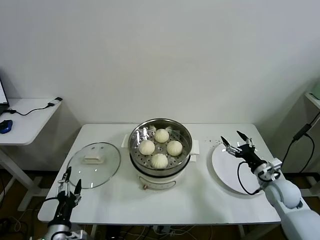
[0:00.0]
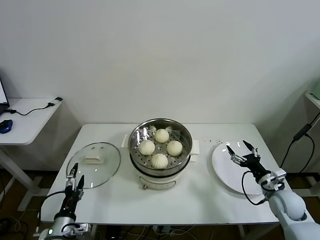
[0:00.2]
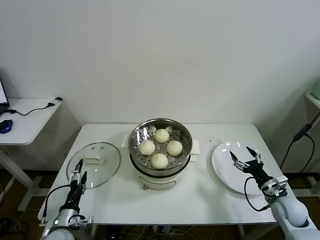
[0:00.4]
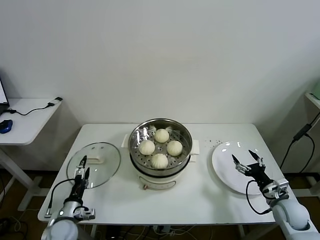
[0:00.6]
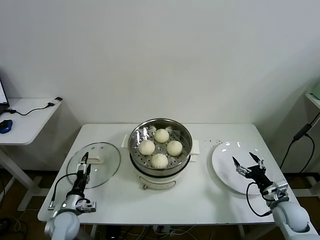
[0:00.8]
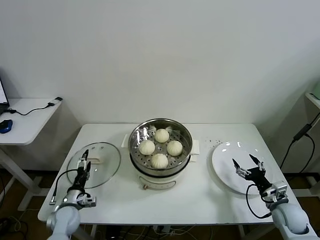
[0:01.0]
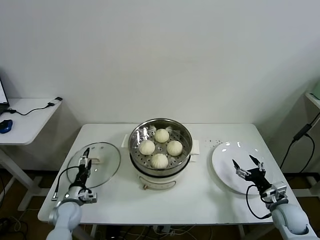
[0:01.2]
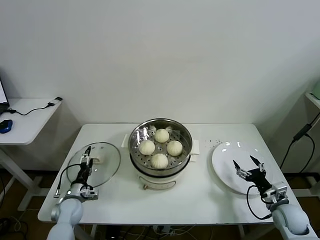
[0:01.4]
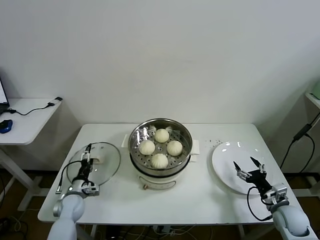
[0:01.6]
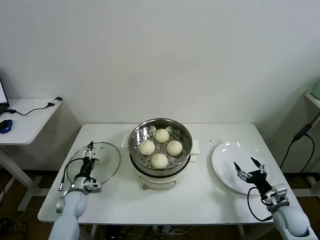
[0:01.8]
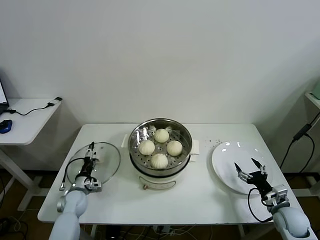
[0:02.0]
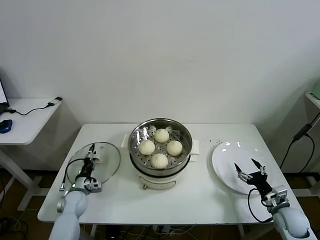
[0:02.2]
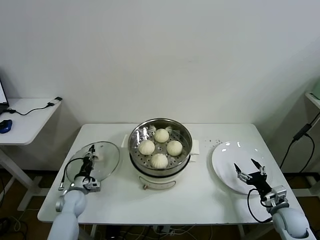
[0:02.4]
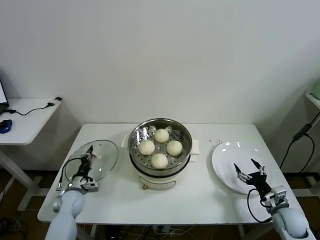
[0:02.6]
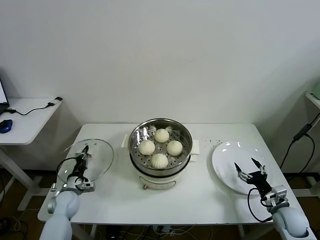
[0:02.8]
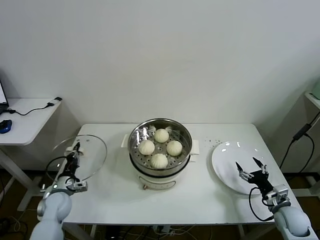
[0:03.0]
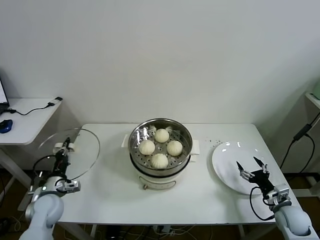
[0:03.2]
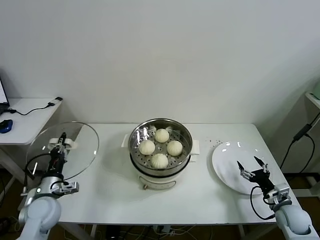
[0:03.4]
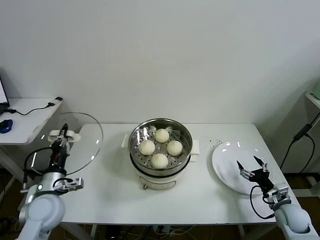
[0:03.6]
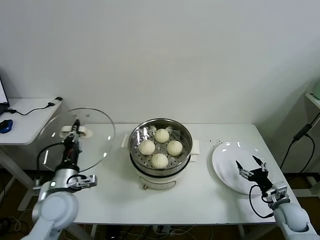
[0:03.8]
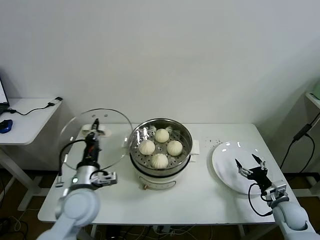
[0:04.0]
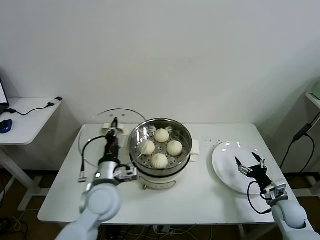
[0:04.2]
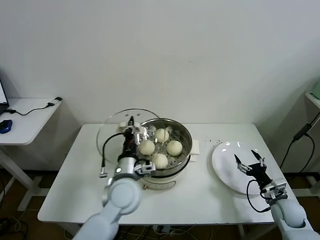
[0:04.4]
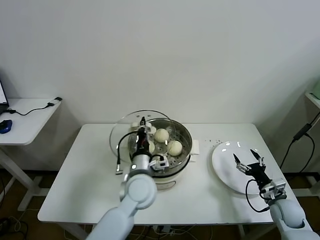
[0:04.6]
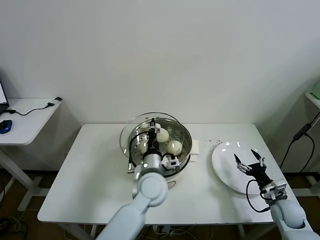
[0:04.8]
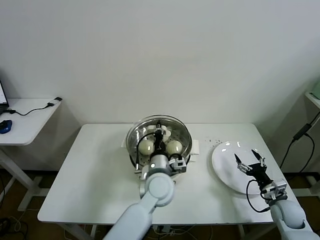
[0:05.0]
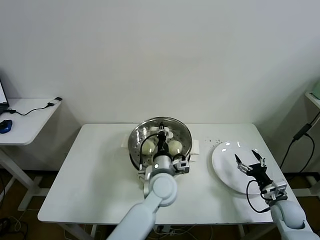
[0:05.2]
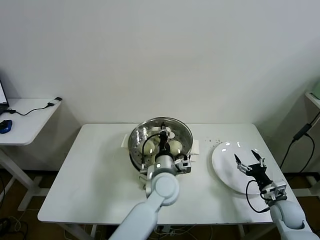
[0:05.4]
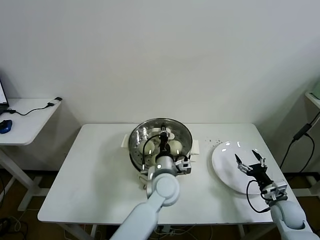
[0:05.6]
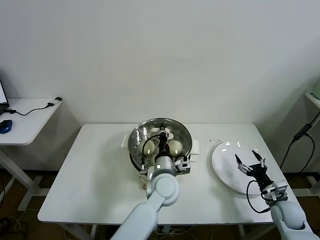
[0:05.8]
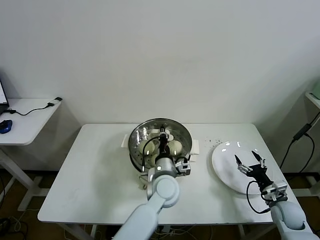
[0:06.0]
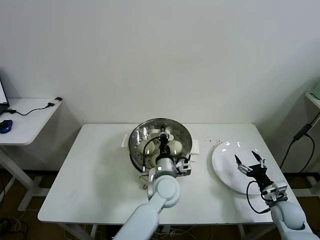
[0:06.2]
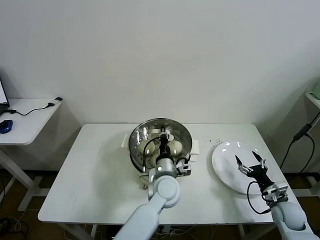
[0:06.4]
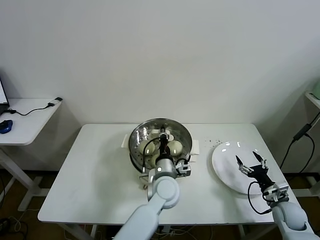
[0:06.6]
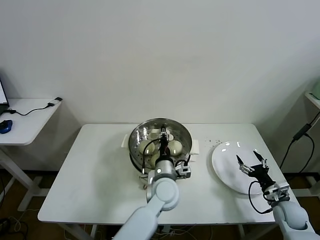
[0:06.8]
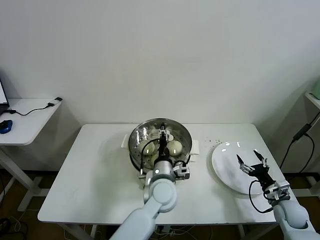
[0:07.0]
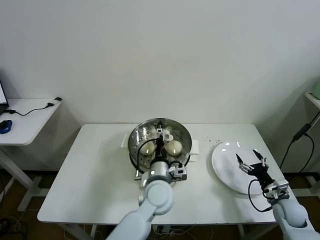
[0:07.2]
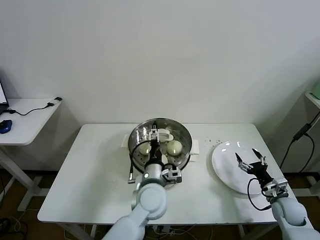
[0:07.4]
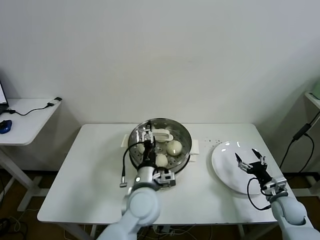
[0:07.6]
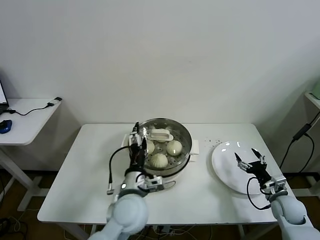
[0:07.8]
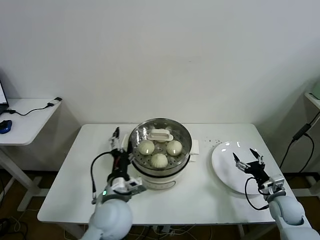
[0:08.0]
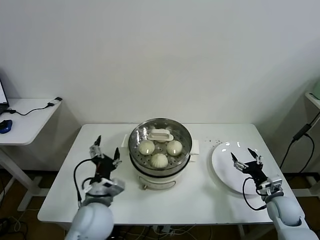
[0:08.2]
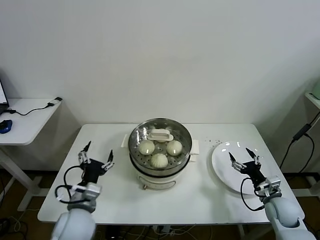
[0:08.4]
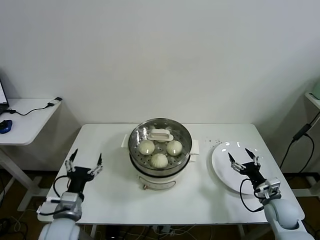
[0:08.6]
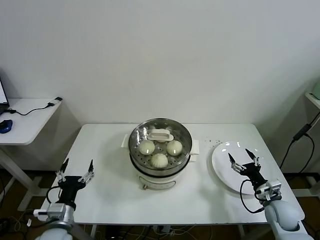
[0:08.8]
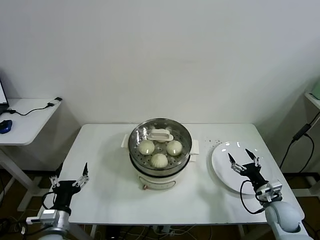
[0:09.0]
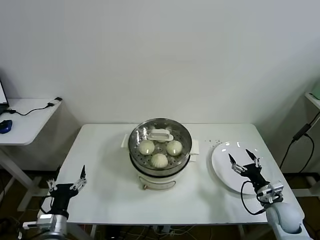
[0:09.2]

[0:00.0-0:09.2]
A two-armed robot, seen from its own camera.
Task of the whole recording: take steamed baozi put them in steamer then cover it.
Step, 0:00.0 to 0:02.8: Grasp the pot lid with left gripper.
Step, 0:03.0 to 0:07.2: Place the pot lid on the steamer with left gripper.
0:00.0 to 0:01.6: The left gripper moves forward and downward, about 20 cm. The right gripper is displaced backward and downward by about 10 cm.
0:01.6 to 0:03.0: The left gripper closes its fingers.
0:03.0 to 0:04.6: The left gripper heads to the right and upward, covering about 35 cm.
0:04.6 to 0:06.2: The left gripper goes about 10 cm to the right.
0:06.2 to 0:07.6: The left gripper moves to the left and backward, some 5 cm, and opens up.
0:07.6 to 0:09.2: The left gripper heads to the left and backward, covering roughly 30 cm.

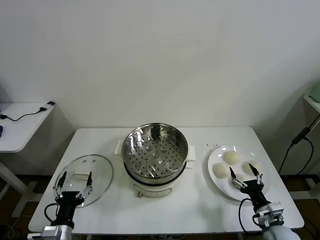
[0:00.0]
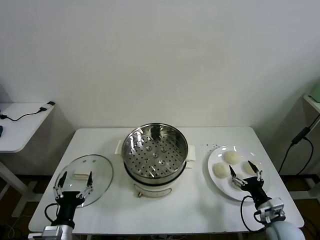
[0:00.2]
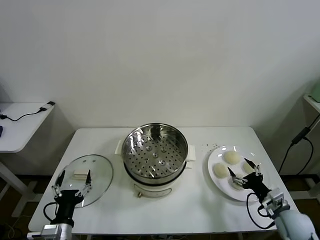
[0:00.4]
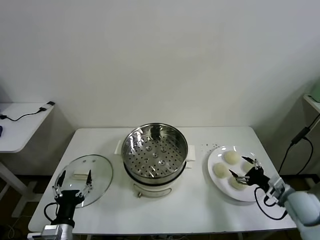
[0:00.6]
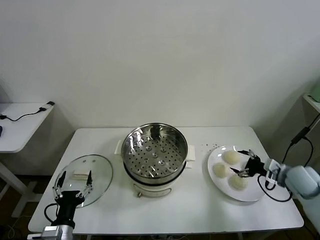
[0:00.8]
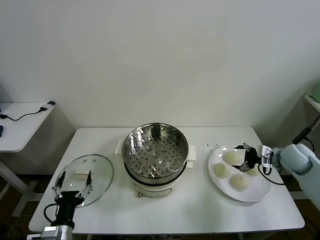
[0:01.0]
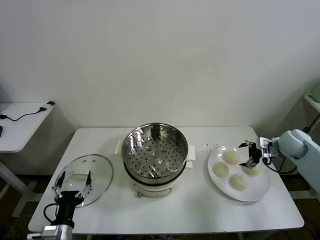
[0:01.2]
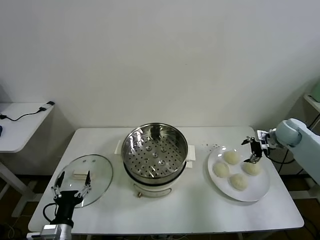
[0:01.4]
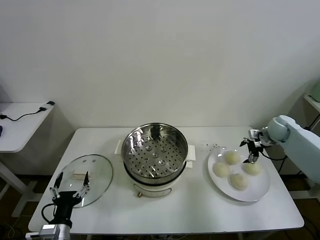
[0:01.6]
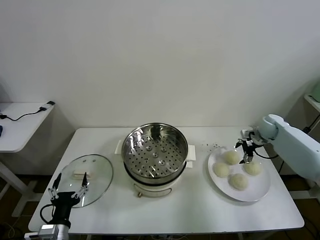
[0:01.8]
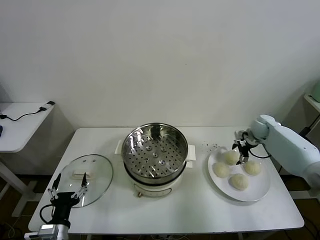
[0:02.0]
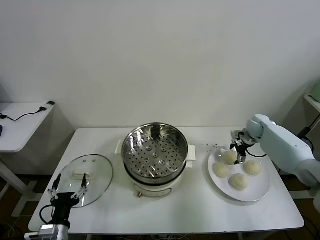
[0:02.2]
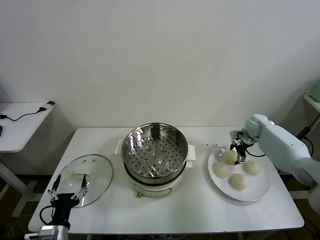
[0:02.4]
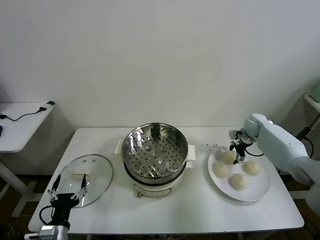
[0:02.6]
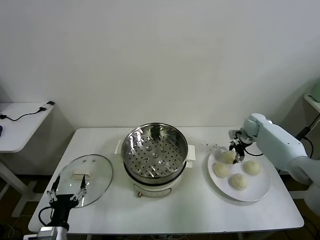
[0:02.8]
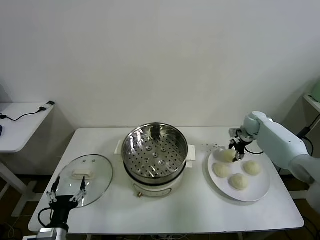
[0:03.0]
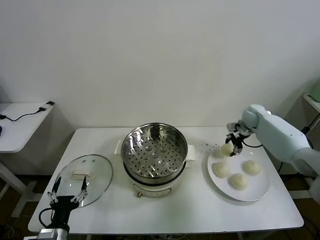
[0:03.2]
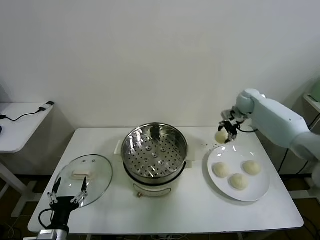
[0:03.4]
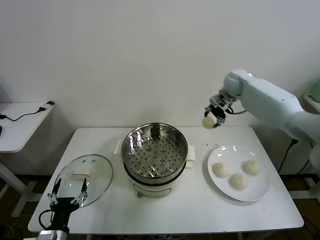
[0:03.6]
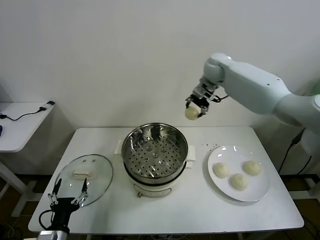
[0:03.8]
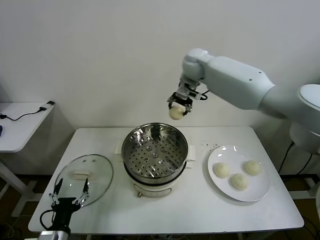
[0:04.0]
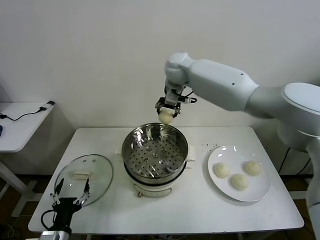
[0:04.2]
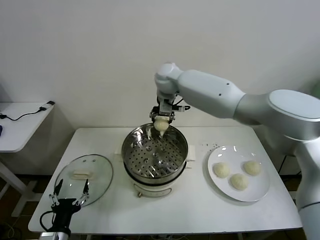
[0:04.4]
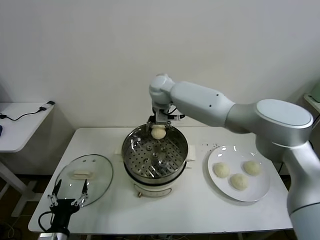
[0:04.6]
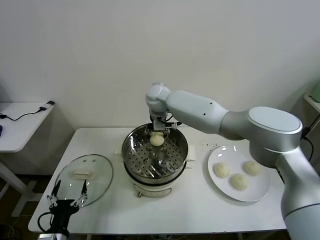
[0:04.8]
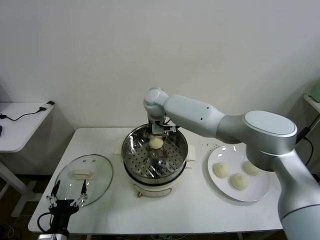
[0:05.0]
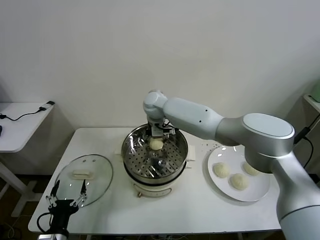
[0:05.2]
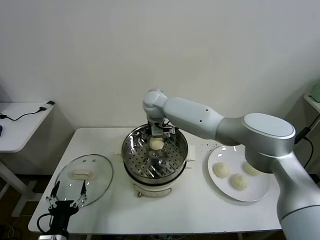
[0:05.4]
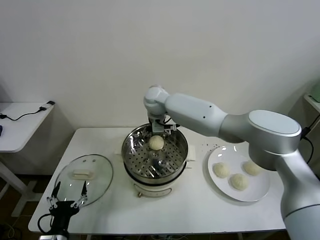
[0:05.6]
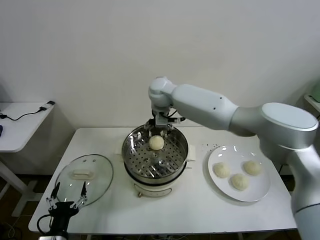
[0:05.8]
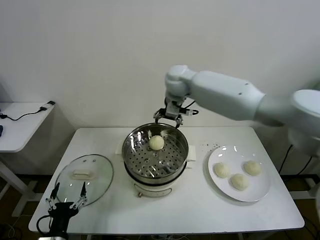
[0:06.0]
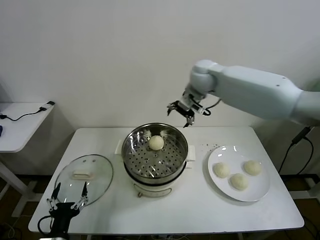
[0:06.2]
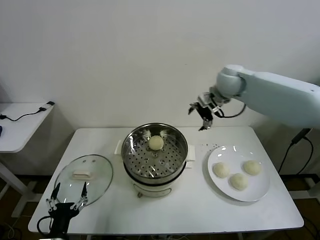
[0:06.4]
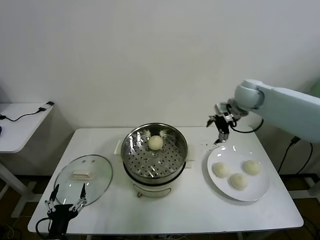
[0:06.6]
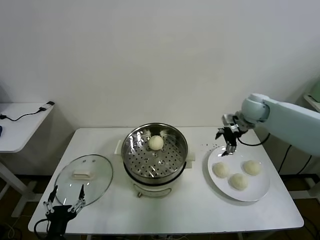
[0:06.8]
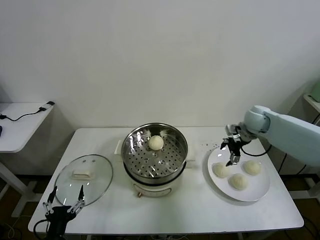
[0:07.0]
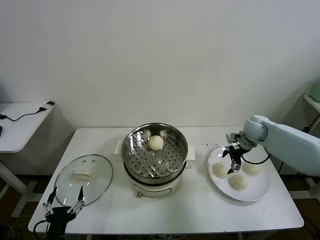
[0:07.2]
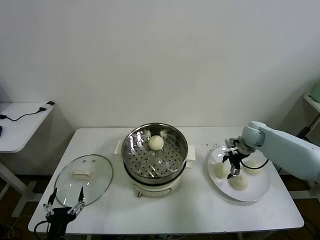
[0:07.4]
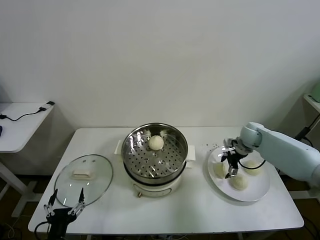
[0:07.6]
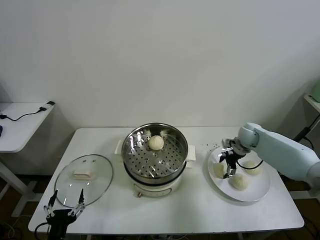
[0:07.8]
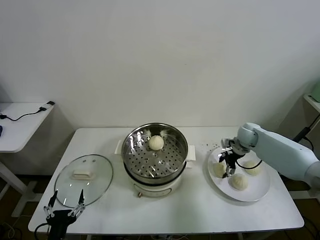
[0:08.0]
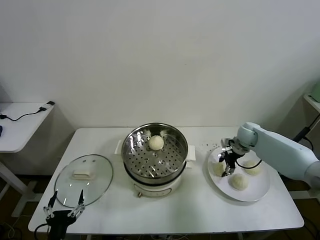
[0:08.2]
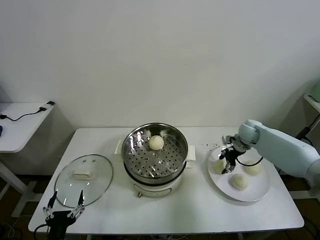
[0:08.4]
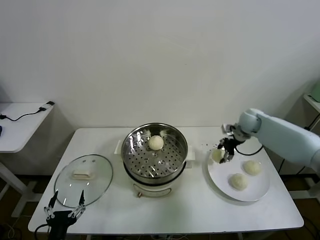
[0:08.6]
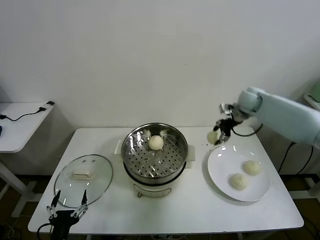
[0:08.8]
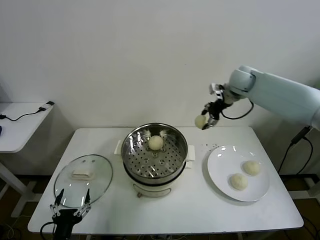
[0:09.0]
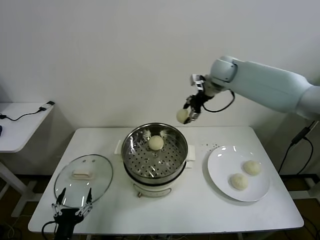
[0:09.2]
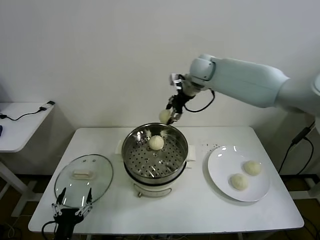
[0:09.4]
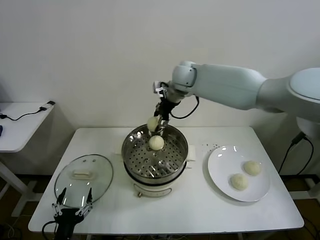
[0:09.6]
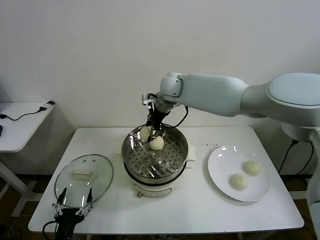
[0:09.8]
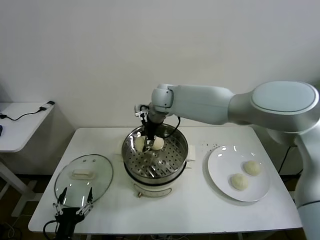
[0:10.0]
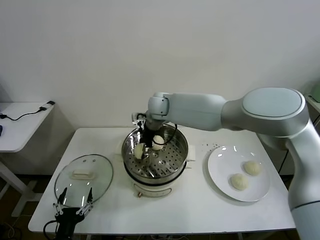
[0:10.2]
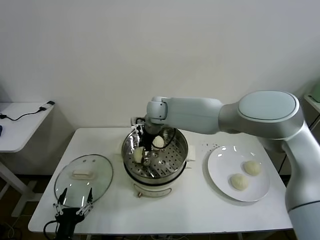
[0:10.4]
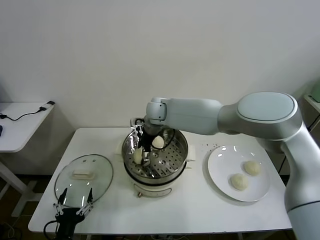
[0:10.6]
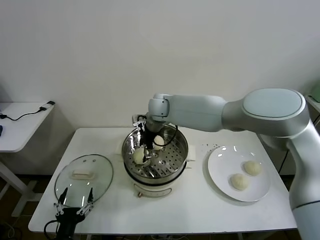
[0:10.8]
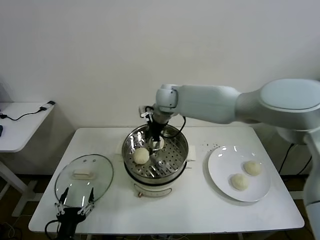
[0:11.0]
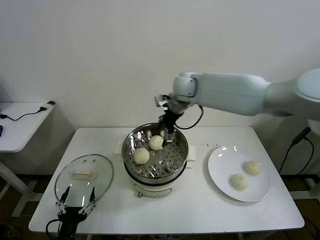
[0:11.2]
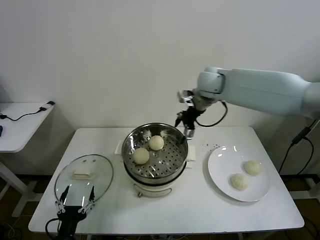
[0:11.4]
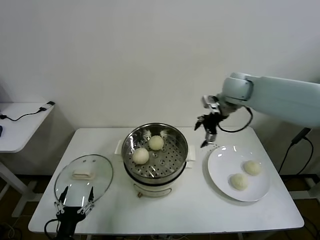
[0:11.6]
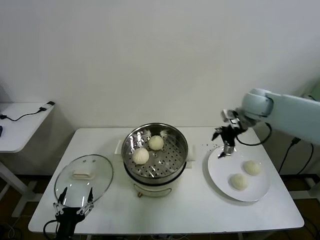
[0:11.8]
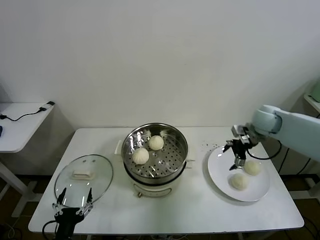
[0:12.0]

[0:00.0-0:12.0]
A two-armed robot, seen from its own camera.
Task of the whole recording: take steamed baozi put them in steamer then cover it.
Step, 0:00.0 to 0:02.6: Grasp the baozi in the plate with right gripper.
Step, 0:02.8 to 0:05.8: Place the baozi on the steamer with right gripper.
Step, 0:06.0 to 0:08.2: Grasp the baozi in the plate with right gripper.
Step, 0:08.4 to 0:11.2: Place the baozi on the steamer with right gripper.
0:01.6 to 0:03.0: The right gripper goes roughly 5 cm forward and to the left, and closes its fingers.
0:03.0 to 0:04.4: The right gripper heads to the left and upward, covering roughly 40 cm.
0:04.4 to 0:06.0: The right gripper goes roughly 10 cm to the right, and opens its fingers.
0:06.0 to 0:07.6: The right gripper moves to the right and downward, approximately 35 cm.
0:07.6 to 0:09.0: The right gripper goes about 25 cm upward and to the left, and closes its fingers.
0:09.0 to 0:10.4: The right gripper moves to the left and downward, about 30 cm, and opens up.
0:10.4 to 0:12.0: The right gripper heads to the right, covering roughly 40 cm, and opens.
